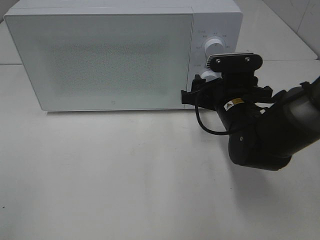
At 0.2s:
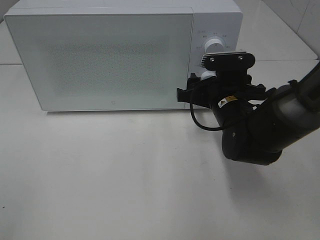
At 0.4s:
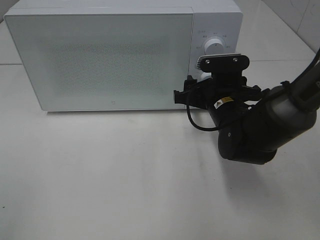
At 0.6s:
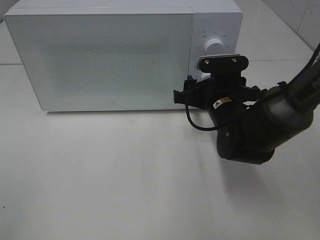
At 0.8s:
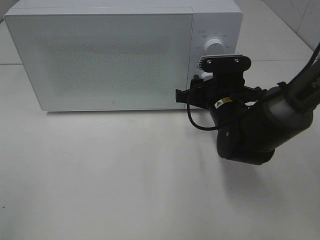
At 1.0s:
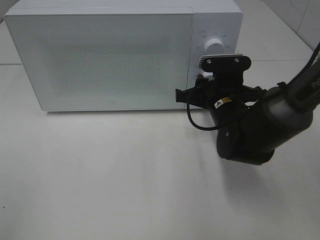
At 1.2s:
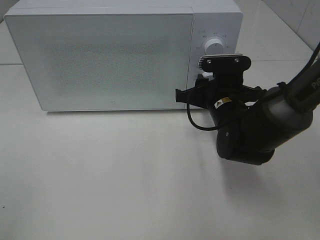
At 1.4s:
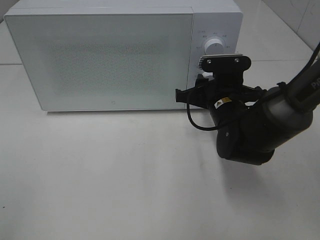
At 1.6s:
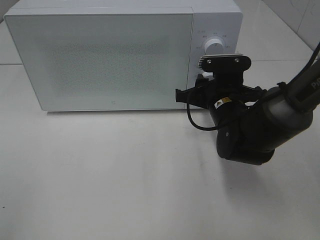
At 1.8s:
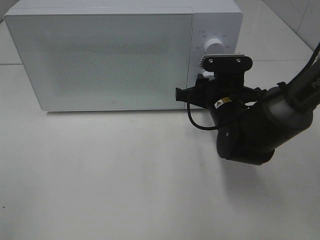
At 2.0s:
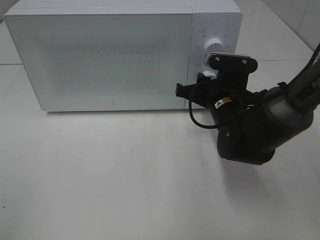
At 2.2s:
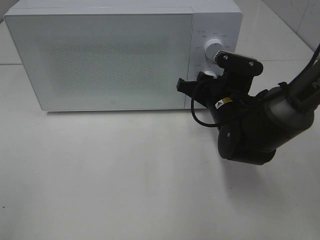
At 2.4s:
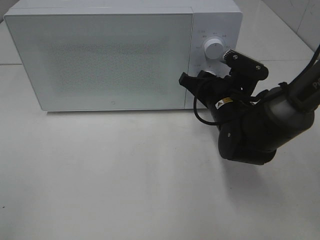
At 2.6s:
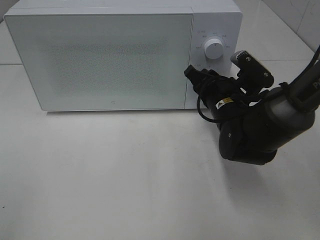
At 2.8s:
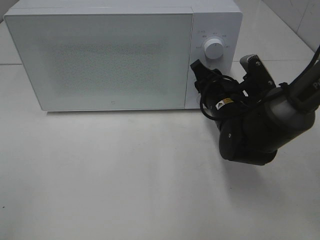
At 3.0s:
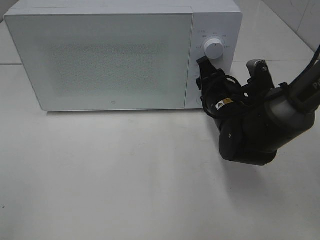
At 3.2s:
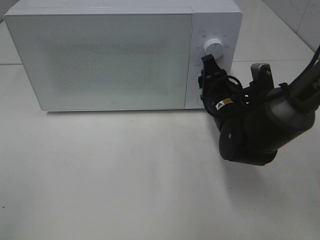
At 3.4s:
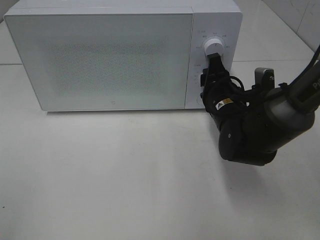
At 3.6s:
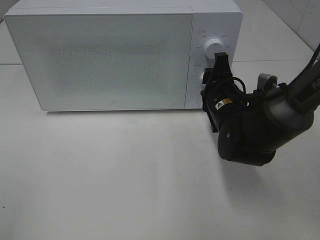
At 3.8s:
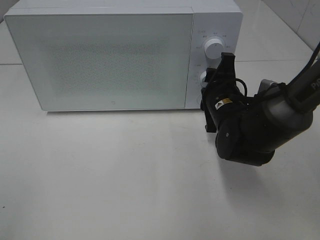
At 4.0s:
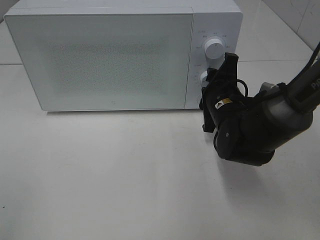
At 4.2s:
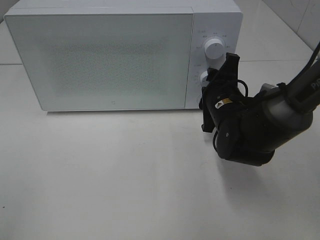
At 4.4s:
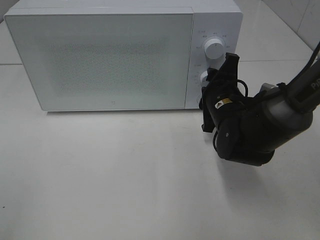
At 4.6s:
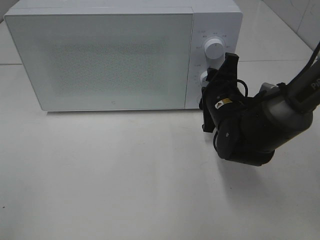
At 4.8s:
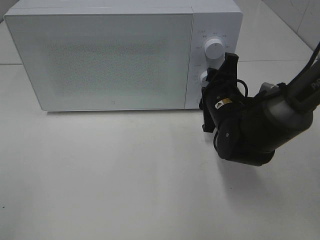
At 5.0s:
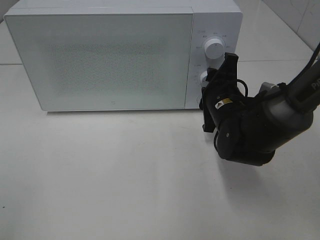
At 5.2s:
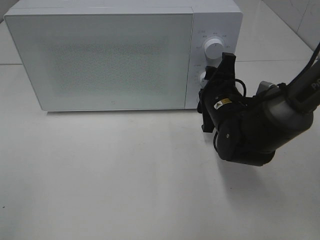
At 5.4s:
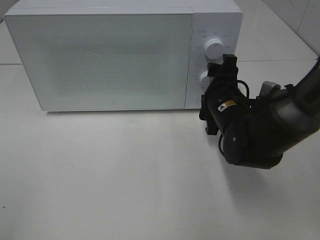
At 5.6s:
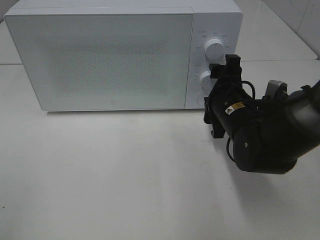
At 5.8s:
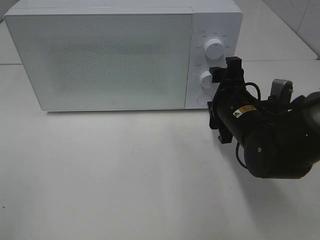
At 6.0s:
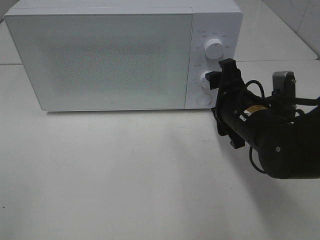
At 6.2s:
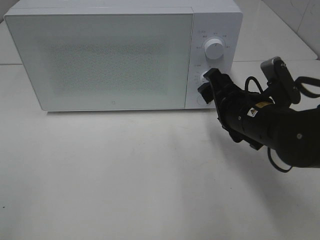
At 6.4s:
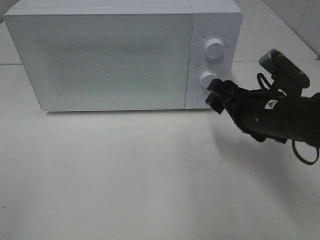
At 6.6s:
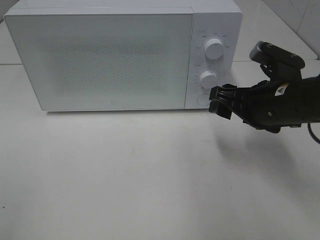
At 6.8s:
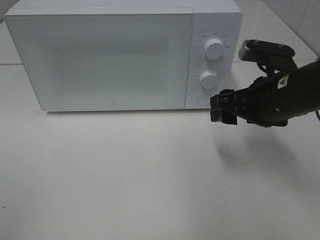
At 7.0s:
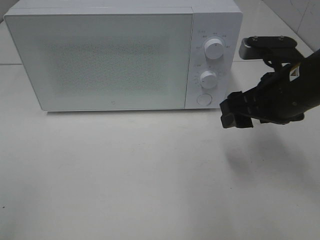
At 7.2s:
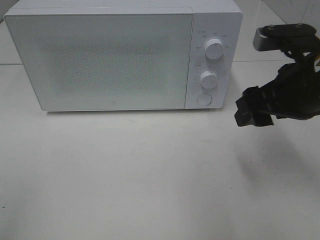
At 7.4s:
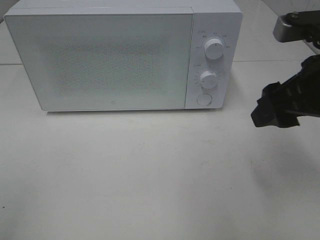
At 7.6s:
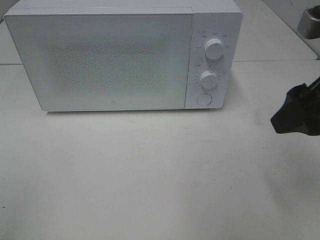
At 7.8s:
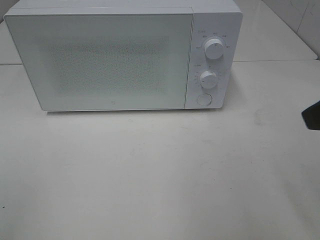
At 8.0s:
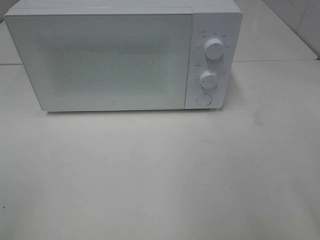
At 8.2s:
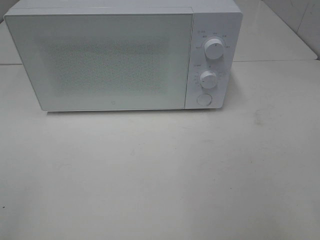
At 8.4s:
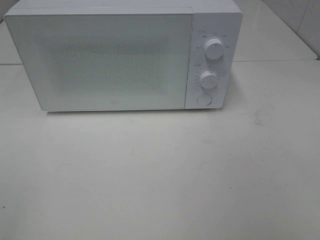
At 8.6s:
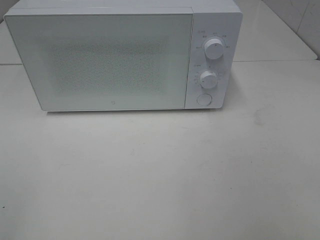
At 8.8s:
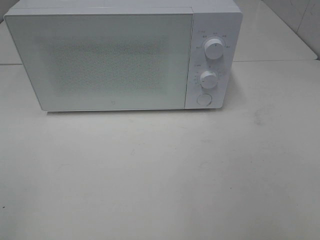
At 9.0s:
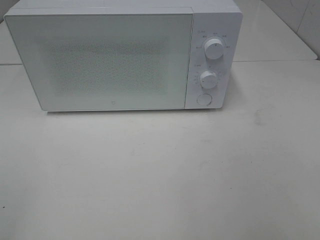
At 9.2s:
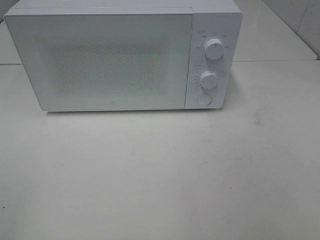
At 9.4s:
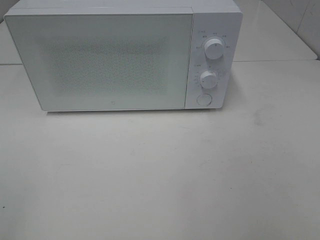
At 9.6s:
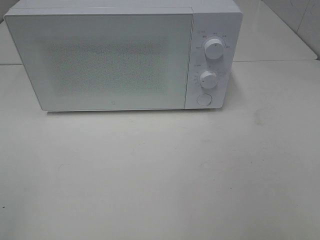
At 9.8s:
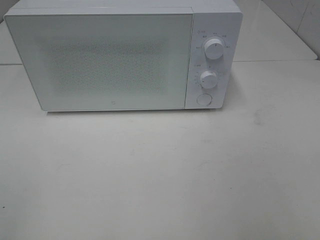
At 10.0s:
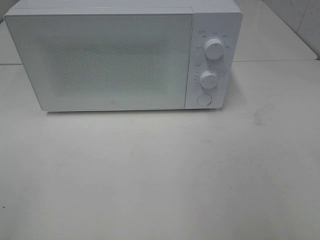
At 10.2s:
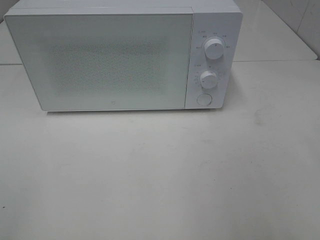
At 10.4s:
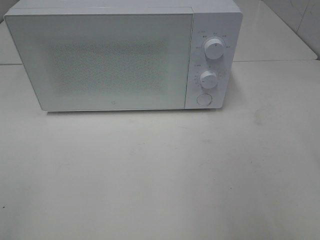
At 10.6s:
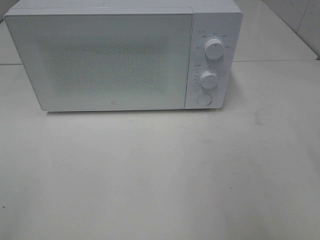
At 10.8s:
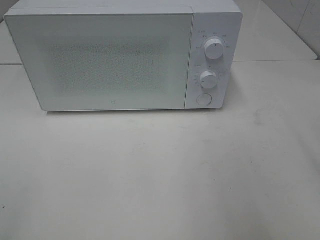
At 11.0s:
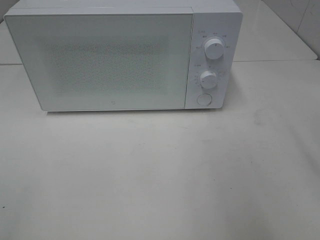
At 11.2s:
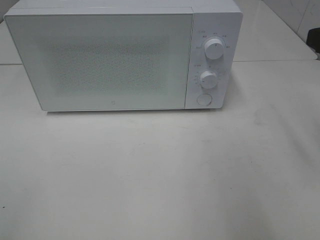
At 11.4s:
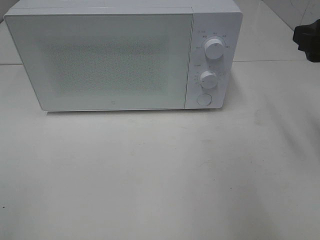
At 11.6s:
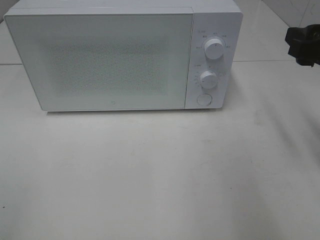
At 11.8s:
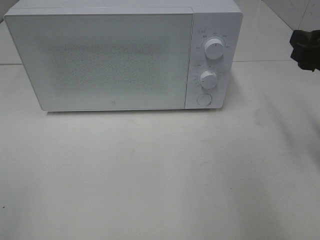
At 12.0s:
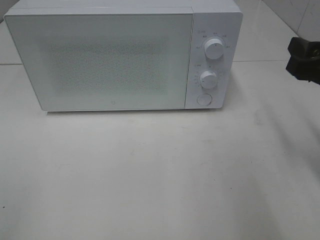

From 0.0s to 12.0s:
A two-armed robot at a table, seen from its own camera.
Task of the whole recording: Heat the burger.
Step, from 0.0s to 5.6s: Right hand: twist timer button.
From 0.0s to 1.6s: The right gripper closes its fingers.
From 4.4s to 6.0s: The right gripper travels backward by roughly 5 cm.
From 6.0s to 7.6s: The right gripper travels upward, backward and to the right by some 20 cm.
From 7.6s to 9.0s: The right gripper goes some 20 cm backward and to the right.
From 10.4s to 12.0s: The right gripper travels forward and downward by roughly 15 cm.

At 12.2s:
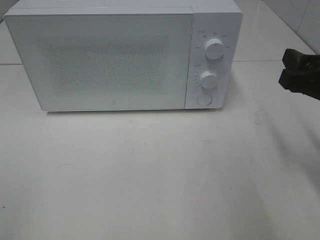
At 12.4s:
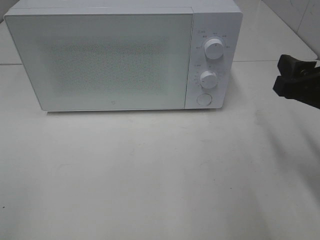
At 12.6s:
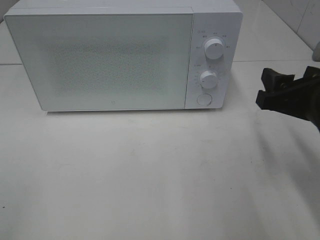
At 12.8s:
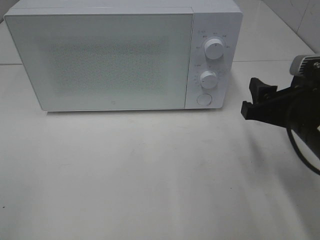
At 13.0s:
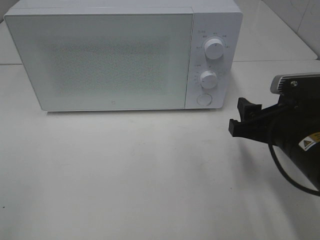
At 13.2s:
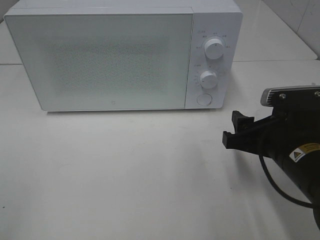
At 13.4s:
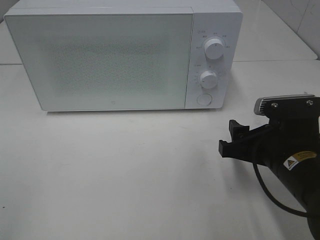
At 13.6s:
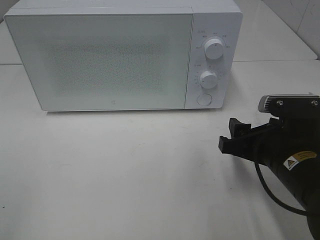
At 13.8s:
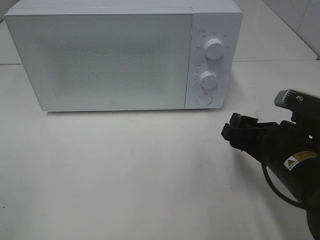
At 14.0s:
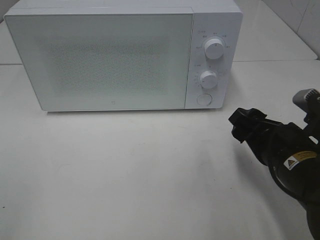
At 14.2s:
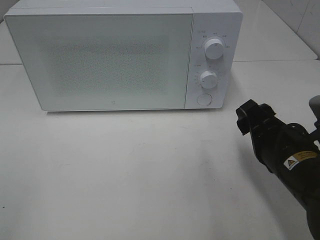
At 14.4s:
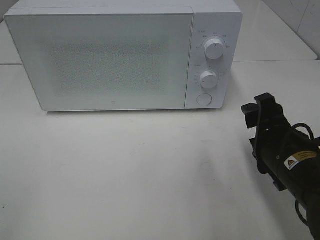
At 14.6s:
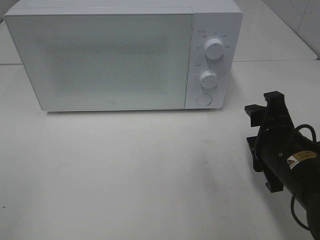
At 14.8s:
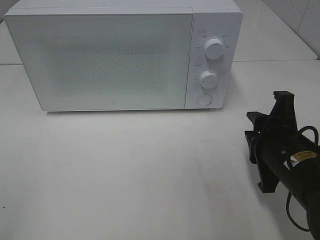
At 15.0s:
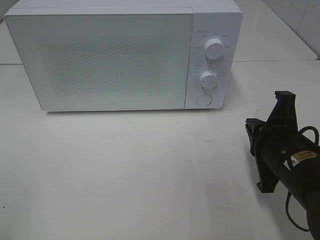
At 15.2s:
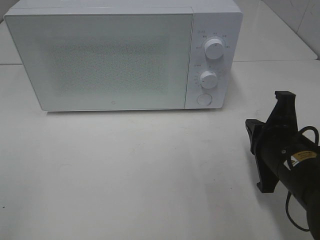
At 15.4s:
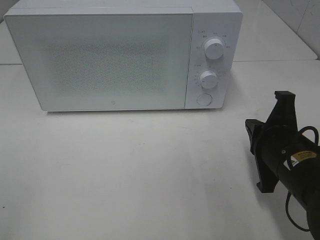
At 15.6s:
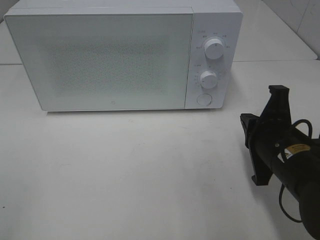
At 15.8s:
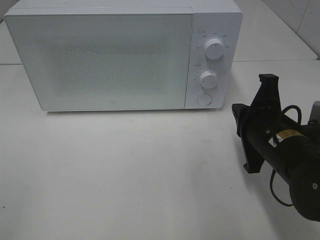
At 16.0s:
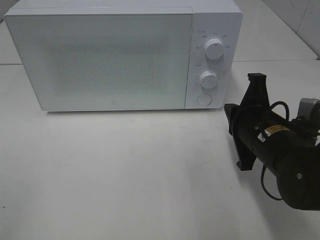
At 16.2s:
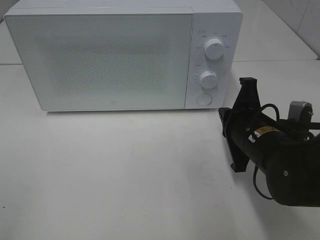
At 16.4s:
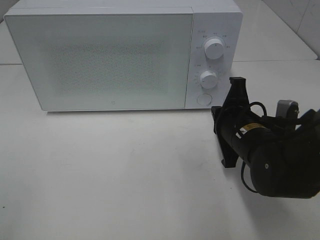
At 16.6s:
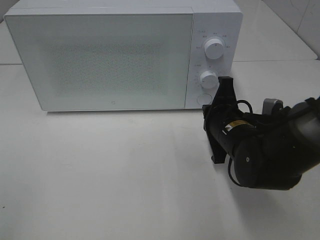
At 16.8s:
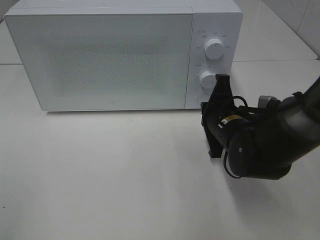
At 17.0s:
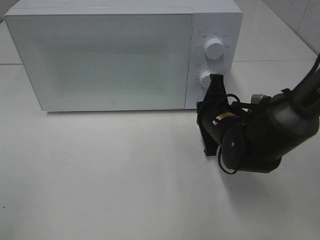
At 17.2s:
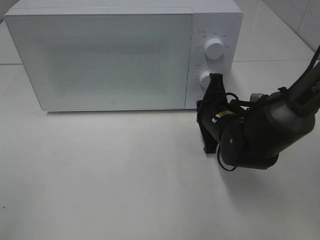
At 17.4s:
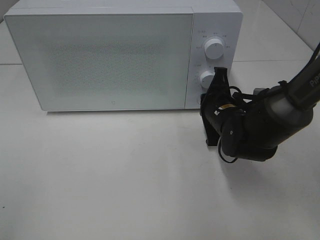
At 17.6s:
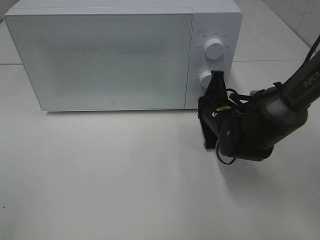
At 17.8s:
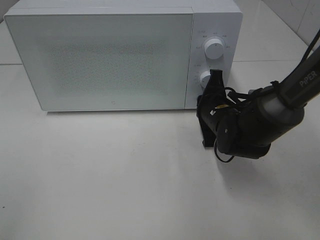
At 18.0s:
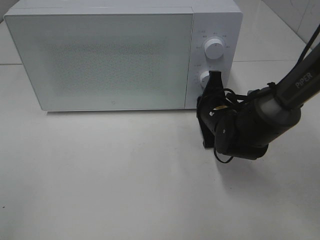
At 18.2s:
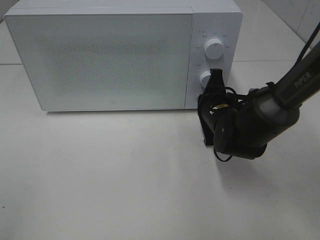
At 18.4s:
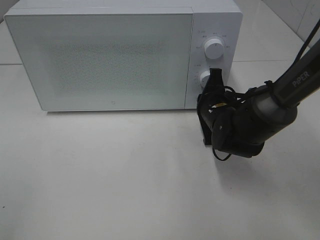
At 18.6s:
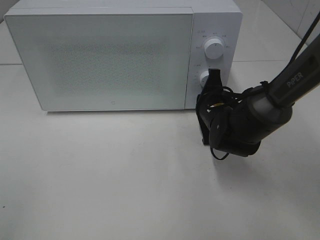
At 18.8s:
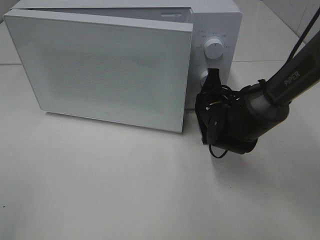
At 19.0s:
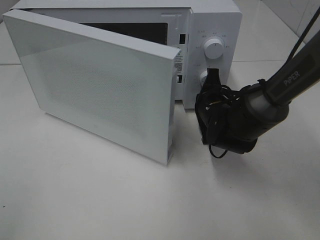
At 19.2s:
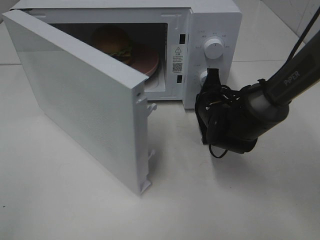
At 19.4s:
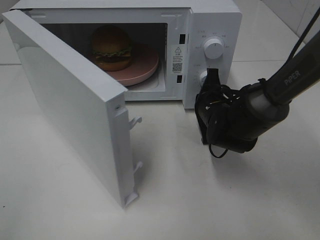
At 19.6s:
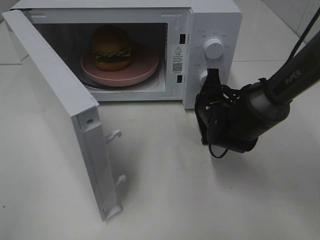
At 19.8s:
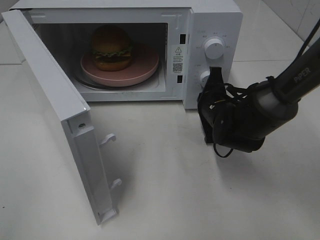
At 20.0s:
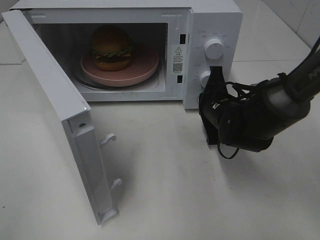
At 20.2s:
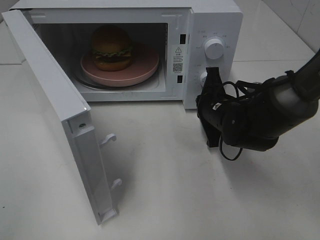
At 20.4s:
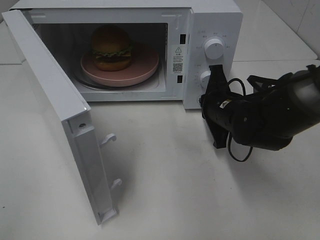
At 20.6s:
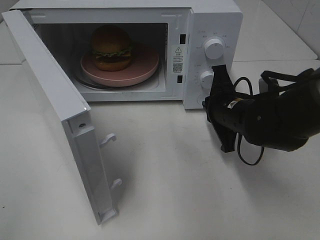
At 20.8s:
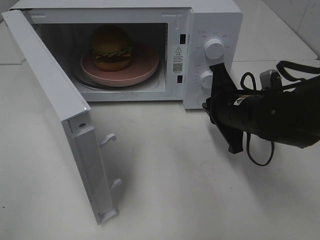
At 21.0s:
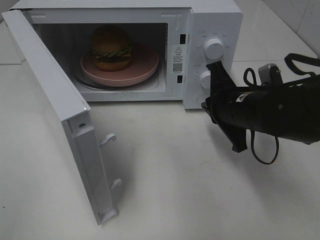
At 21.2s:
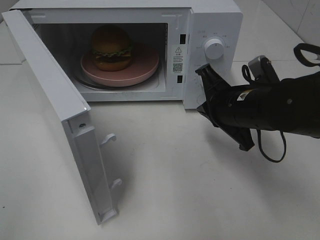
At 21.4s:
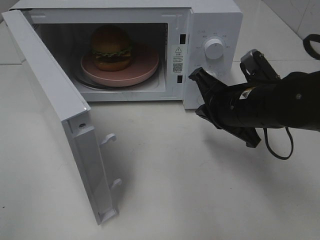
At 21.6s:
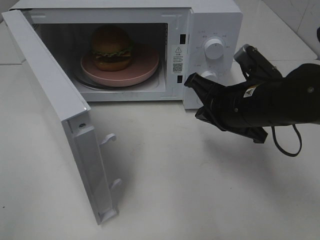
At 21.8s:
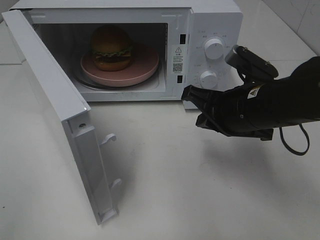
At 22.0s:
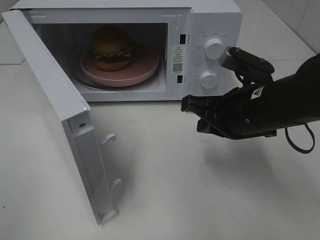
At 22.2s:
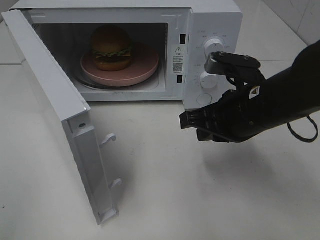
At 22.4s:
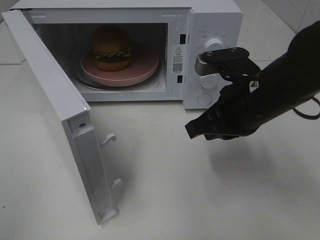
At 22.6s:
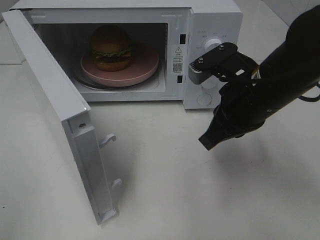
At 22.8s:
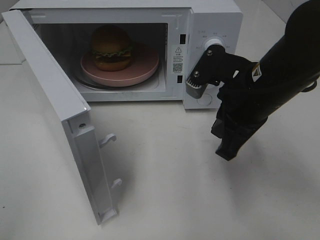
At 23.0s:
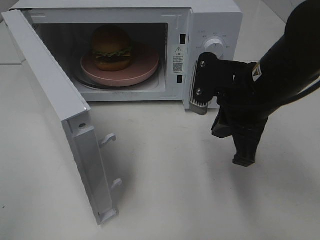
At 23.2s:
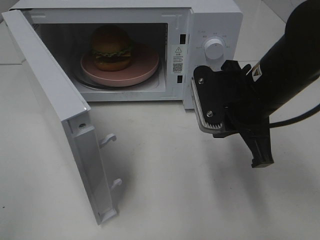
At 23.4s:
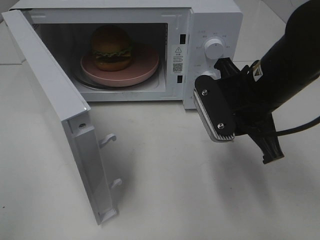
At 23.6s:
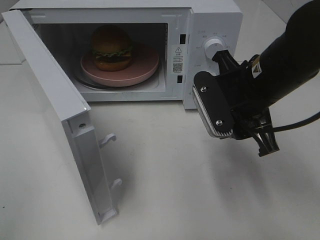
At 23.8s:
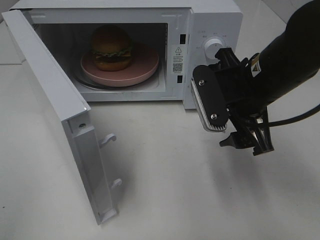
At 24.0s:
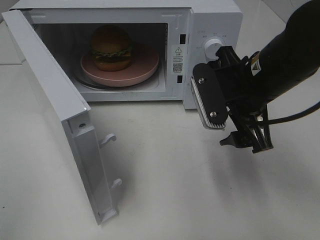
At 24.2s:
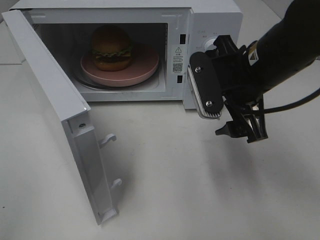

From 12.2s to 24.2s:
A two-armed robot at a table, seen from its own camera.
Task of the whole recording: Heat the burger.
Step, from 12.2s to 20.2s: Right hand: press the switch.
From 12.2s to 13.8s: The right gripper shifts some 10 cm downward and to the left.
From 13.8s to 15.2s: The right gripper closes its fingers.
From 15.2s to 16.6s: The right gripper shifts about 10 cm forward and to the left.
From 16.6s to 18.2s: The right gripper travels forward by roughly 5 cm.
From 19.8s to 21.2s: The right gripper shifts approximately 10 cm upward and backward.
From 21.2s to 22.6s: The right gripper is displaced upward by some 5 cm.
From 22.6s to 24.2s: The right gripper opens.
